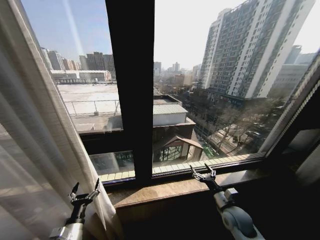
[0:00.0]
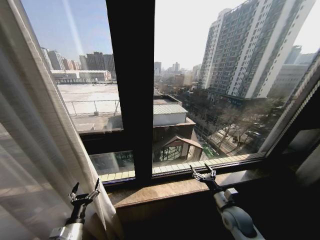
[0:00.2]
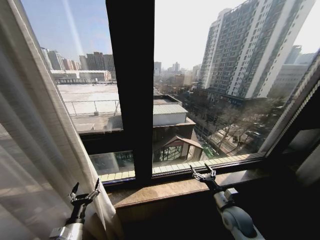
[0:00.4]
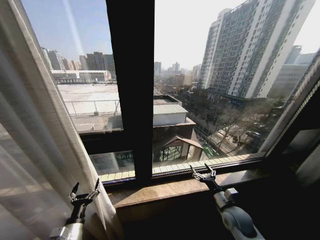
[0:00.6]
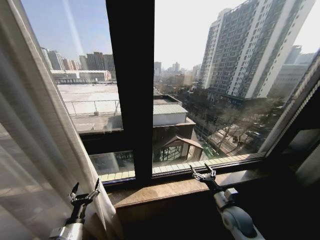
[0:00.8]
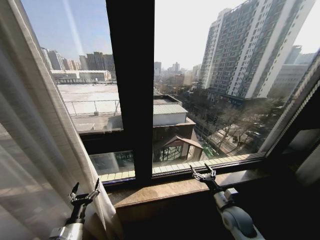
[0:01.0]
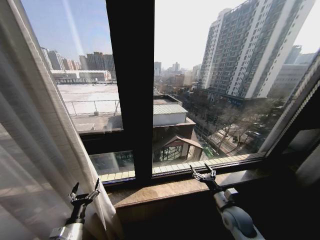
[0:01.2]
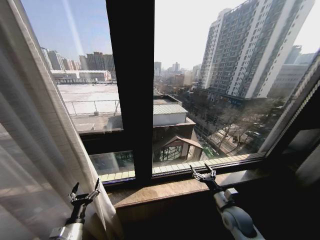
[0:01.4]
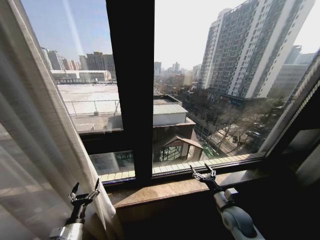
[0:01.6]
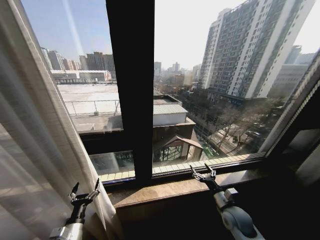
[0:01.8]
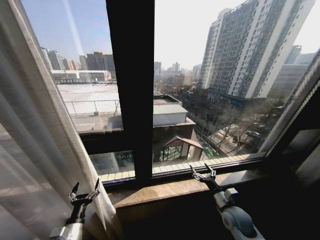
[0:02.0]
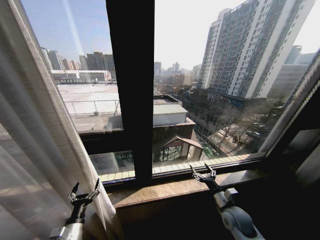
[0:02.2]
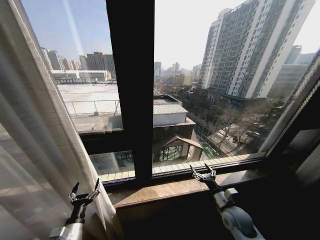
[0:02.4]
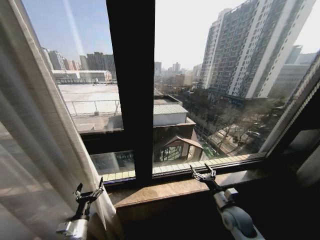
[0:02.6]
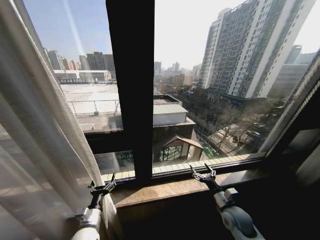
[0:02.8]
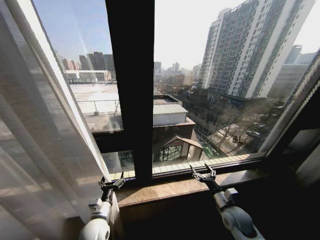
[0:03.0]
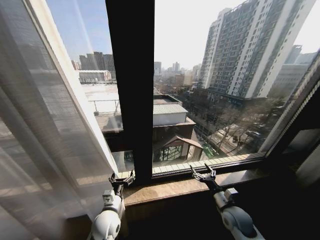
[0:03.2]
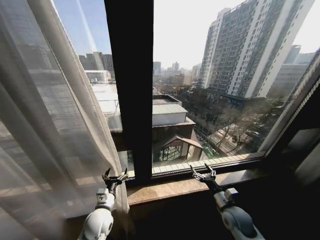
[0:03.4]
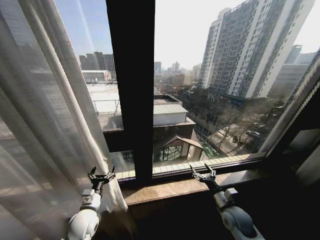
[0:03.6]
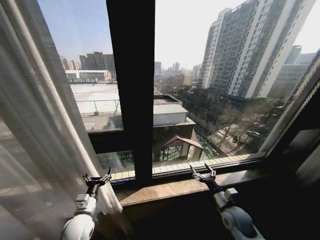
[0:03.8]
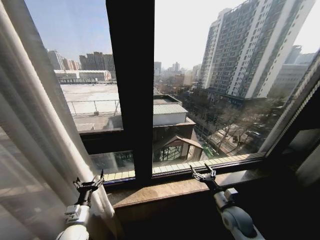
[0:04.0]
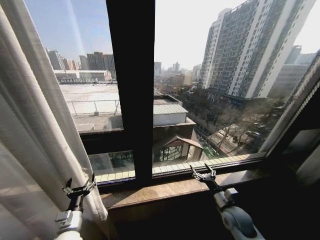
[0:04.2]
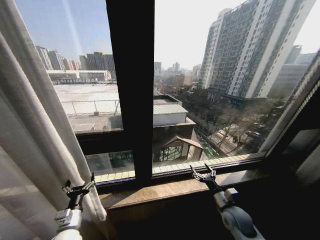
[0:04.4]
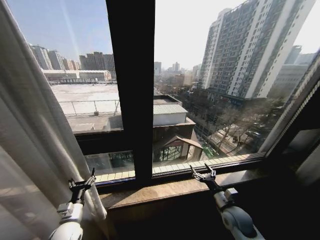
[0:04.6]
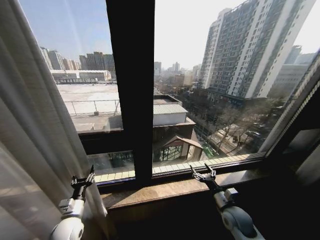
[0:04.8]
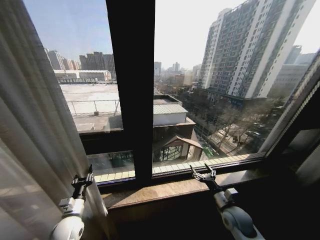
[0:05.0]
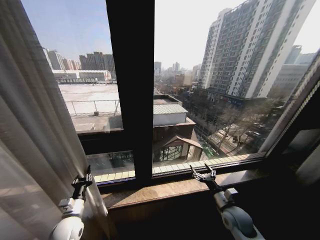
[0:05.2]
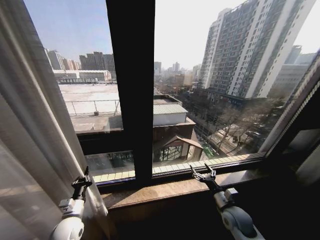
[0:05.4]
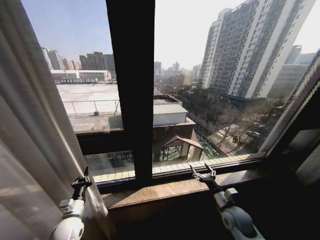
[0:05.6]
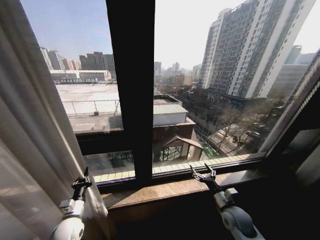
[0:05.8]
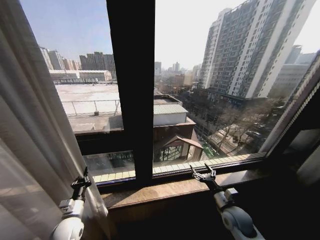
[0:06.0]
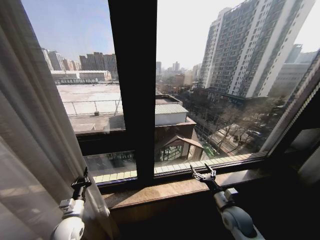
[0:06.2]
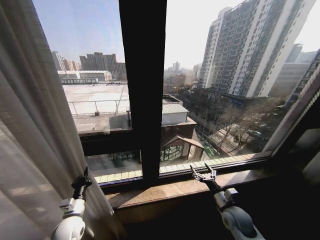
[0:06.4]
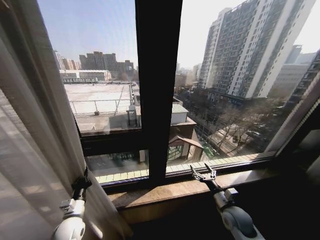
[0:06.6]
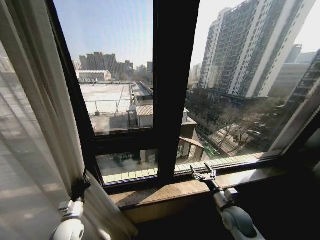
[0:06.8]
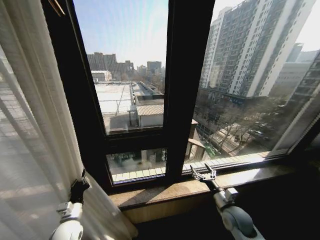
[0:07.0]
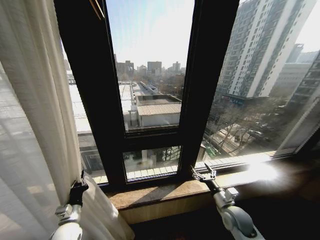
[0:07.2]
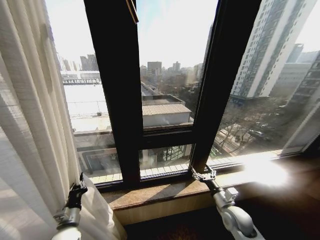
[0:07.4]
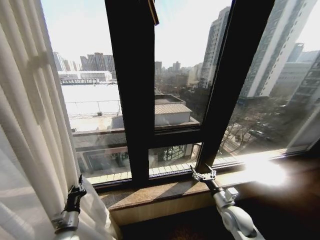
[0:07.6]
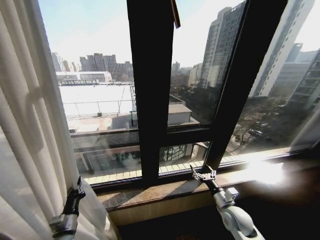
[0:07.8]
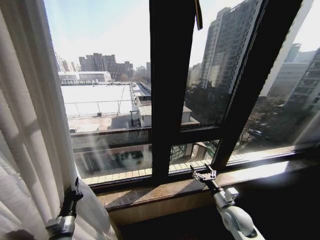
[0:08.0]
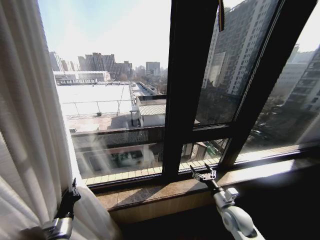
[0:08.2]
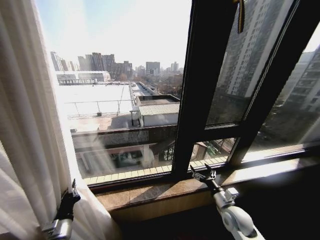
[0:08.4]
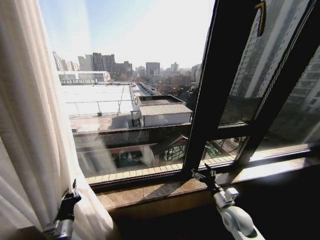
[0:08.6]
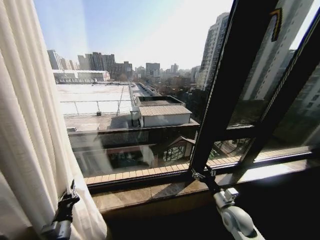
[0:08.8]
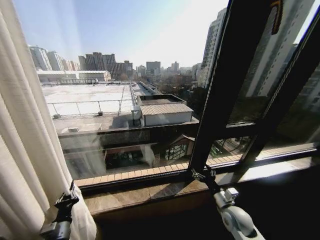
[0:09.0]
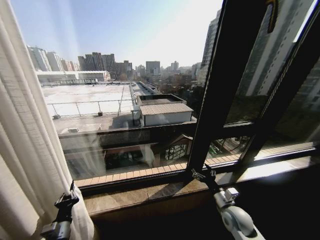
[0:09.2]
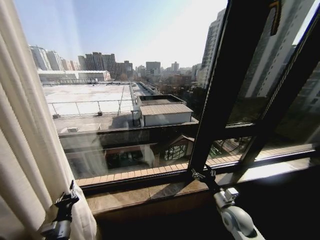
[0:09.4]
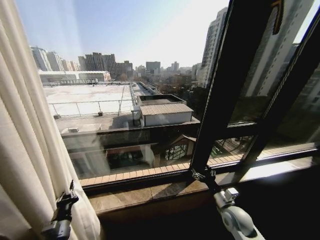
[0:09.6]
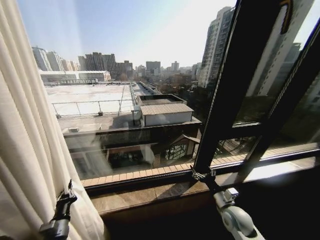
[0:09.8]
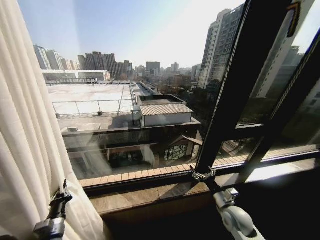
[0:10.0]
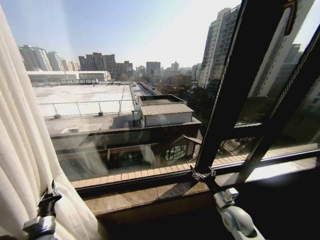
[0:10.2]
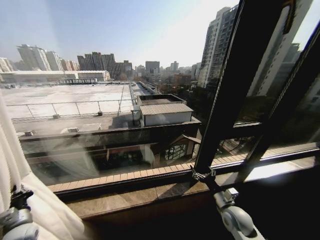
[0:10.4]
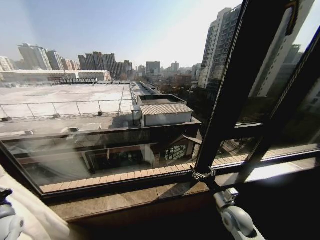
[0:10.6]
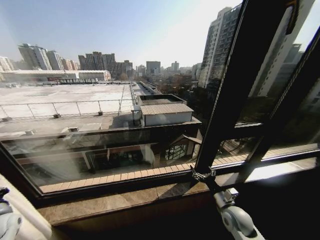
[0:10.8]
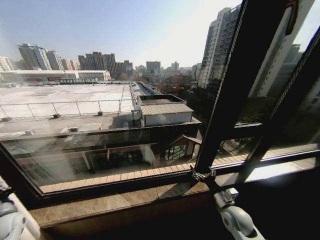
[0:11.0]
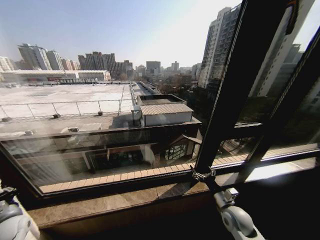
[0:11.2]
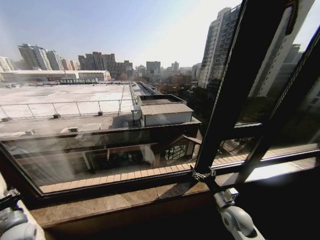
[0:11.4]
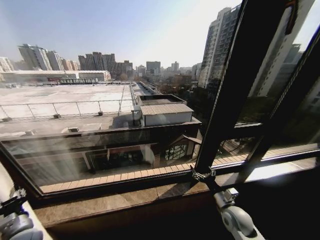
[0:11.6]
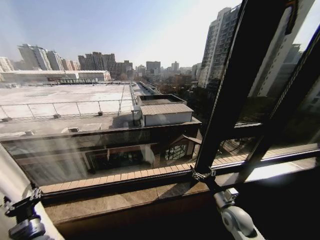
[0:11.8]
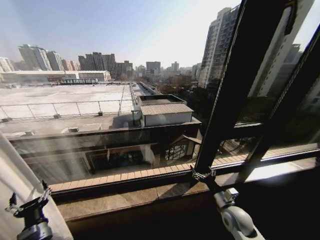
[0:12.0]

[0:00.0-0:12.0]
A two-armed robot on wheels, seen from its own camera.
Task of the whole recording: Open the curtains by pulling them apart, changing their state from closed to fully open.
0:00.0 to 0:01.6: Both grippers stay about where they are.
0:01.6 to 0:03.0: The left gripper heads to the right and forward, covering roughly 10 cm.
0:03.0 to 0:04.4: The left gripper shifts about 10 cm to the left.
0:04.4 to 0:06.0: The left gripper closes its fingers.
0:09.0 to 0:10.4: The left gripper is displaced to the left by some 15 cm.
0:10.4 to 0:12.0: The left gripper moves to the right, some 10 cm, and opens.

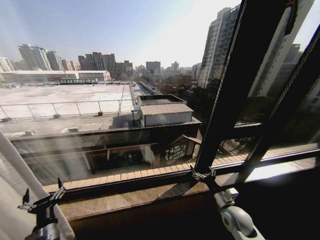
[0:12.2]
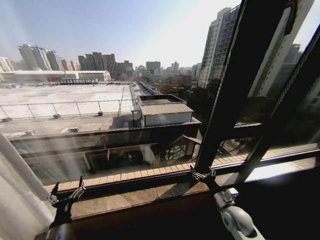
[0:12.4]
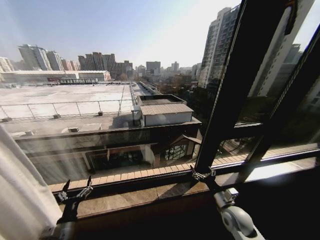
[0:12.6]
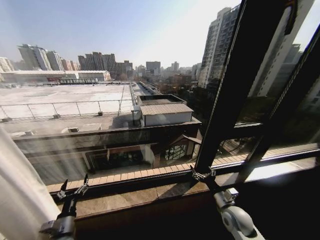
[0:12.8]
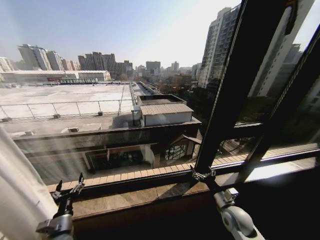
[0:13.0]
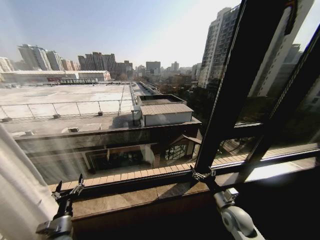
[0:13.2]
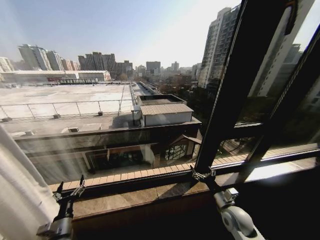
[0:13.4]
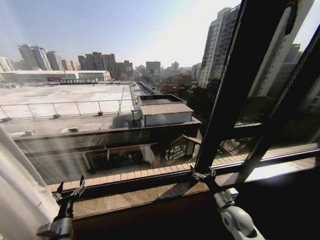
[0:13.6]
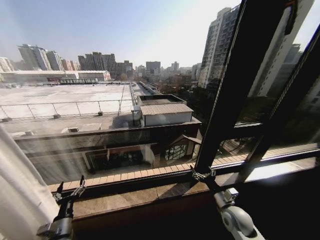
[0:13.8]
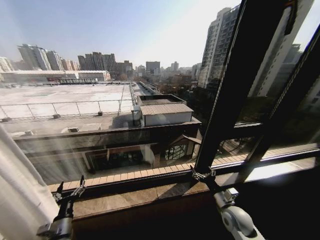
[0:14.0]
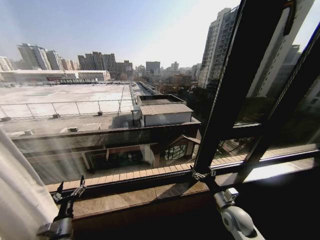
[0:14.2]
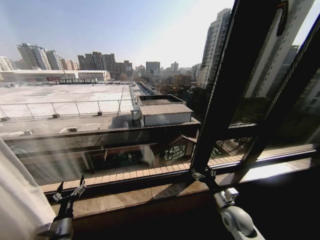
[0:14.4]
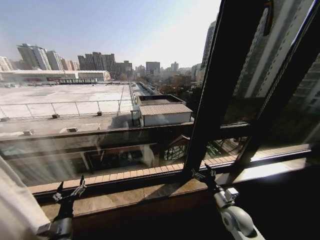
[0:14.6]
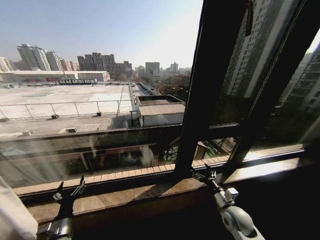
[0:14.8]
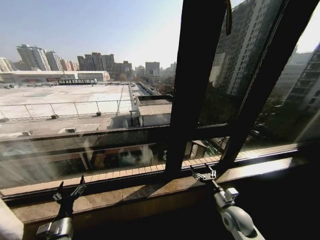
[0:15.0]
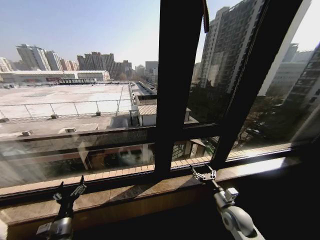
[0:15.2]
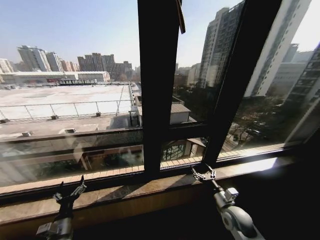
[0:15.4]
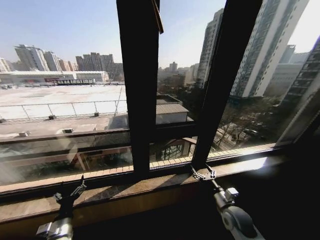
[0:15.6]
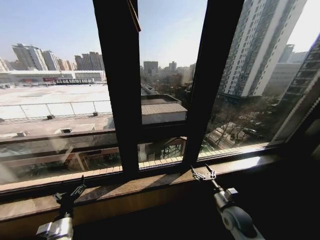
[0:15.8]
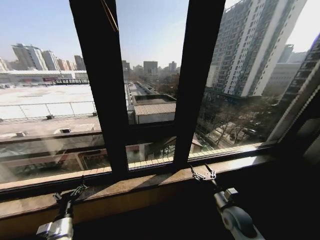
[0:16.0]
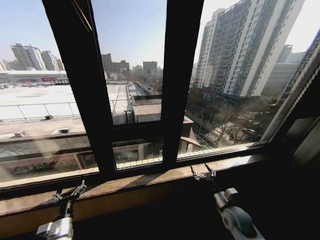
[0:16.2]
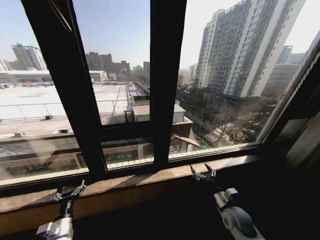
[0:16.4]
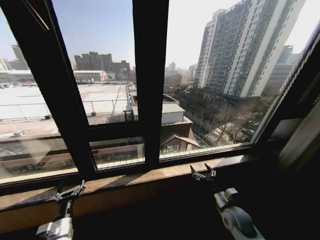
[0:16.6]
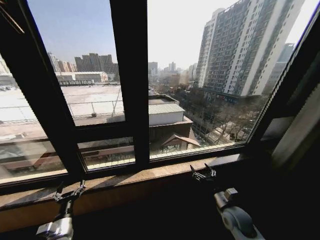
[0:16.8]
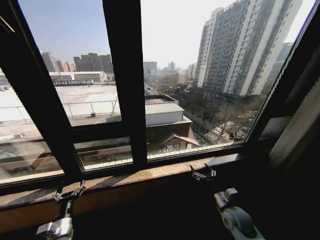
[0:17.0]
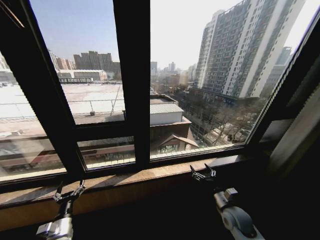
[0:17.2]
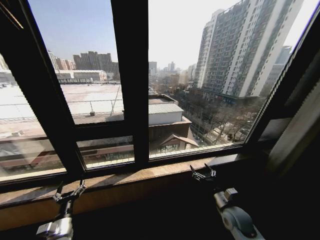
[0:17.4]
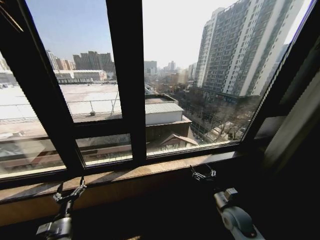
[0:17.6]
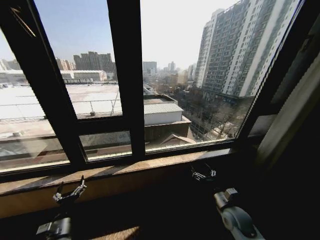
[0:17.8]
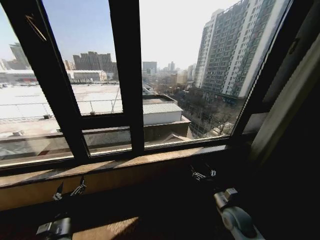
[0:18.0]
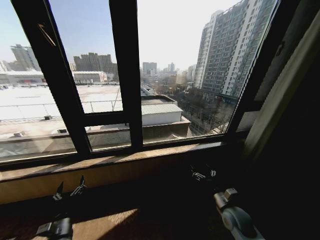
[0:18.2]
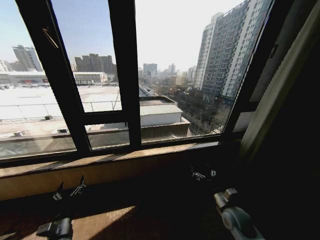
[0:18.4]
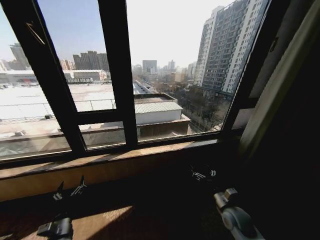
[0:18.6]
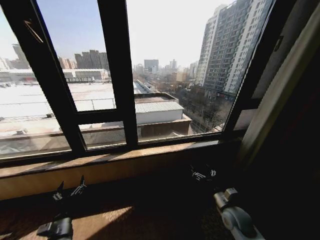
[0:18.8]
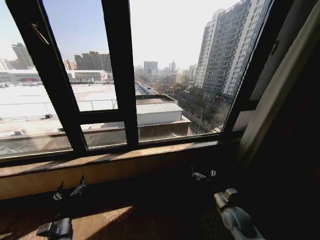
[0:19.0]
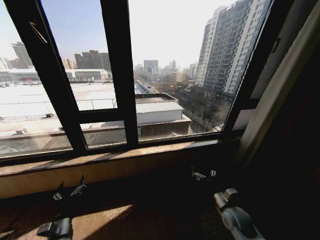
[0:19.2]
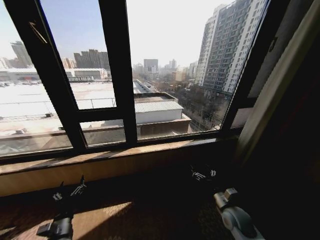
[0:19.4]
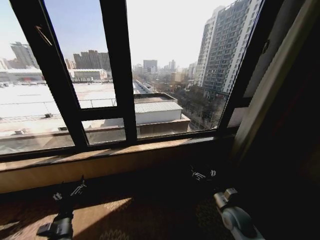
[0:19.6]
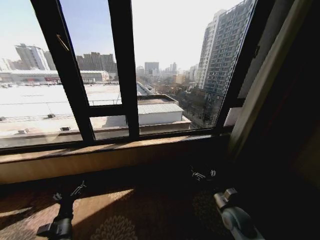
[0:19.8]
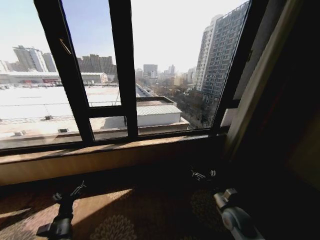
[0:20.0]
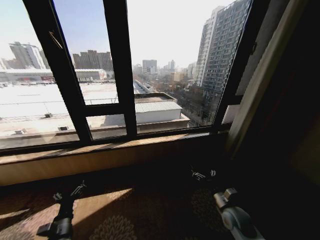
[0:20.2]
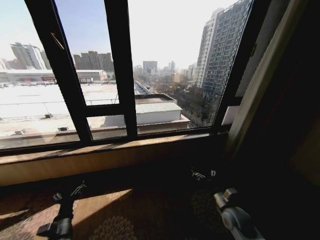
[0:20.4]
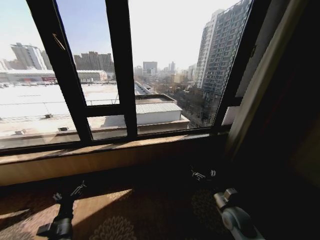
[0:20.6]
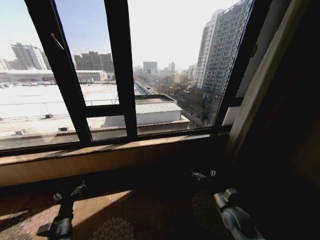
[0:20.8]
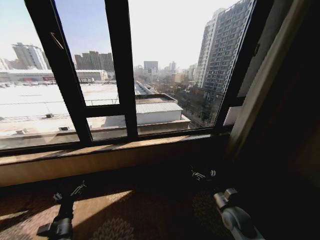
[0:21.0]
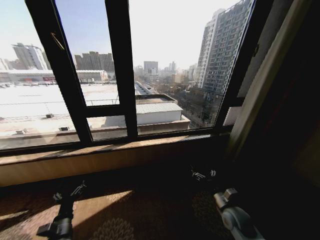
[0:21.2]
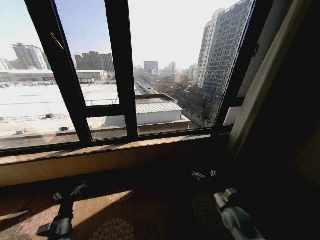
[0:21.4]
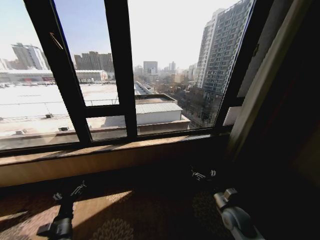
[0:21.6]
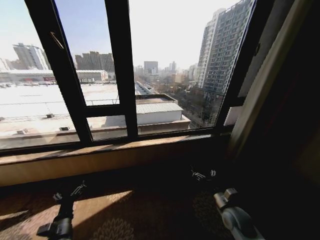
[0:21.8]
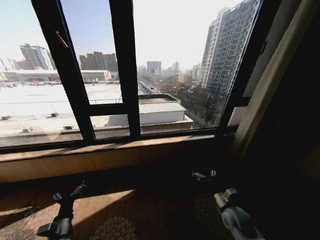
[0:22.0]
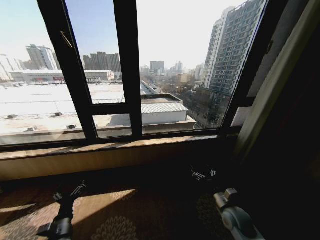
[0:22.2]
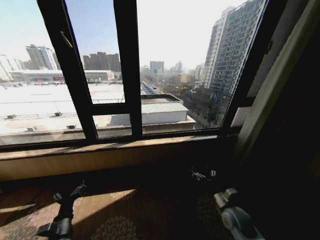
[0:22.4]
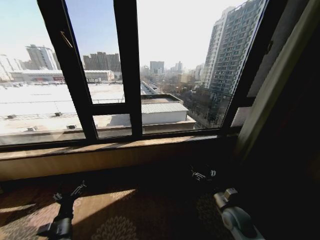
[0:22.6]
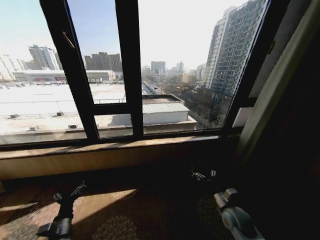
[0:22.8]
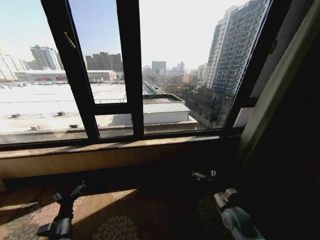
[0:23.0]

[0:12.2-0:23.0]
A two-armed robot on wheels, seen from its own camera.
Task of the whole recording: Open the curtains by pulling them apart, changing their state from closed to fully open.
0:20.0 to 0:21.4: Neither gripper changes place.
